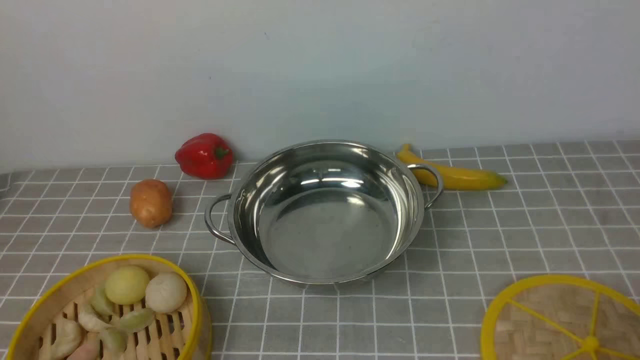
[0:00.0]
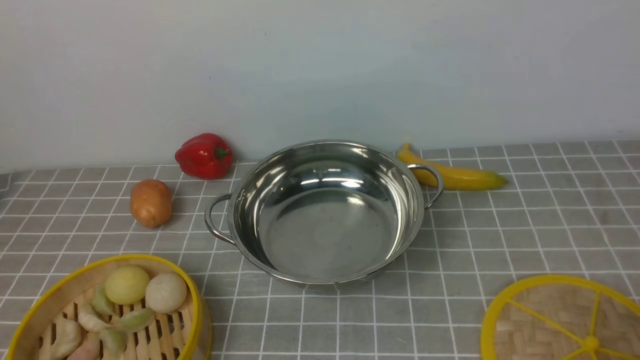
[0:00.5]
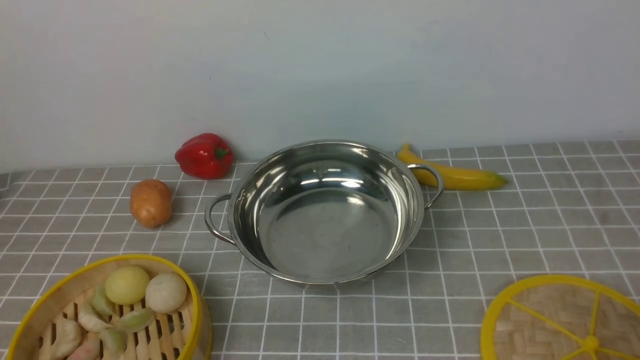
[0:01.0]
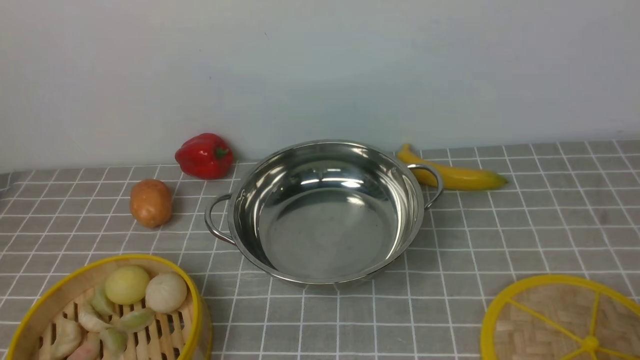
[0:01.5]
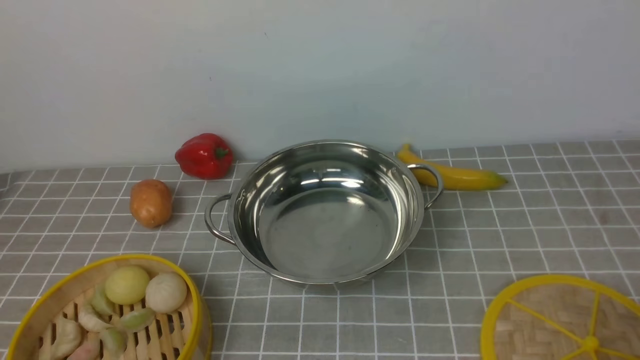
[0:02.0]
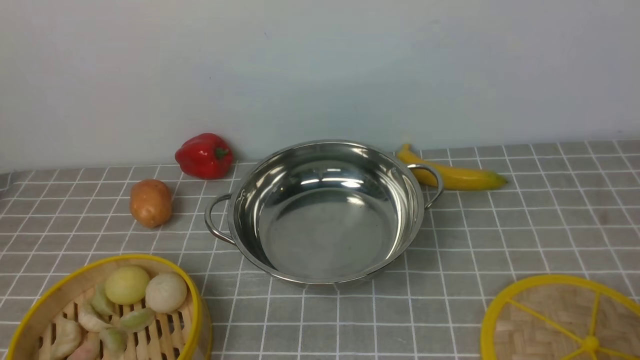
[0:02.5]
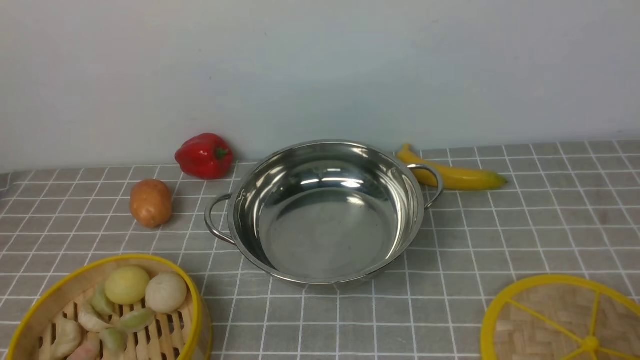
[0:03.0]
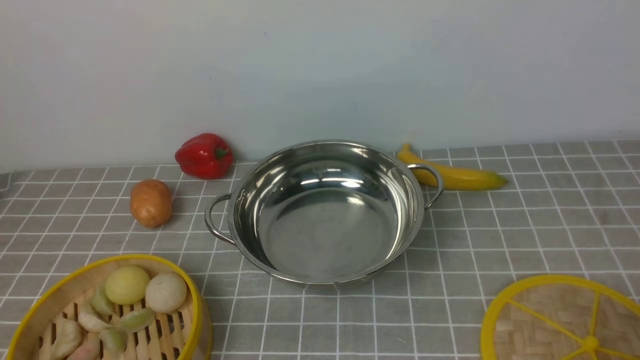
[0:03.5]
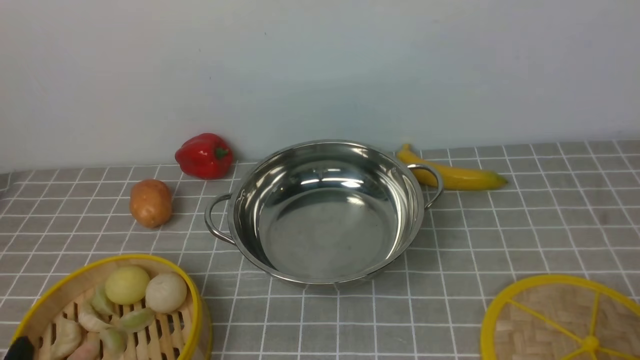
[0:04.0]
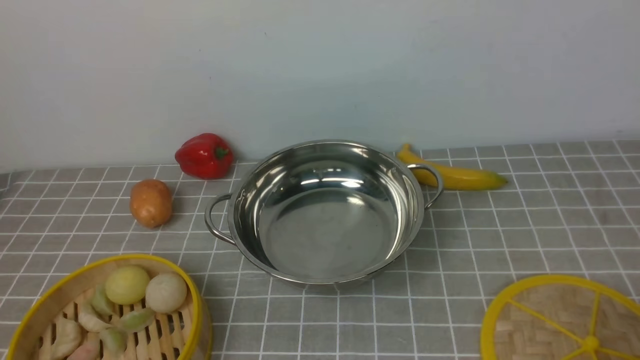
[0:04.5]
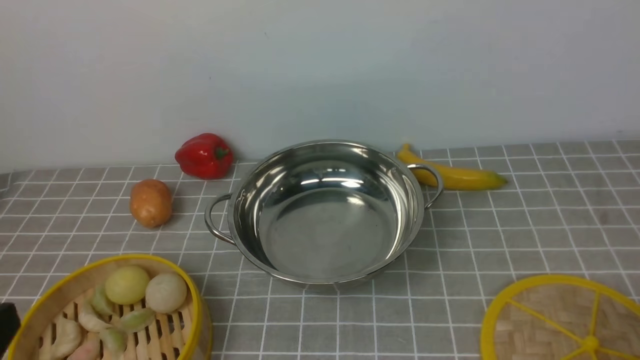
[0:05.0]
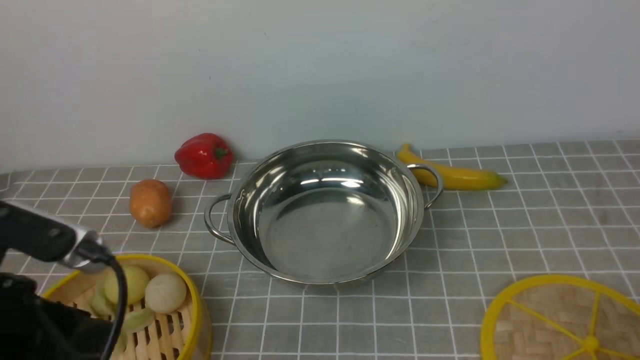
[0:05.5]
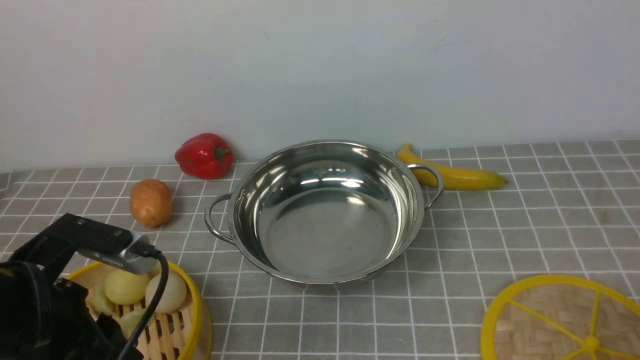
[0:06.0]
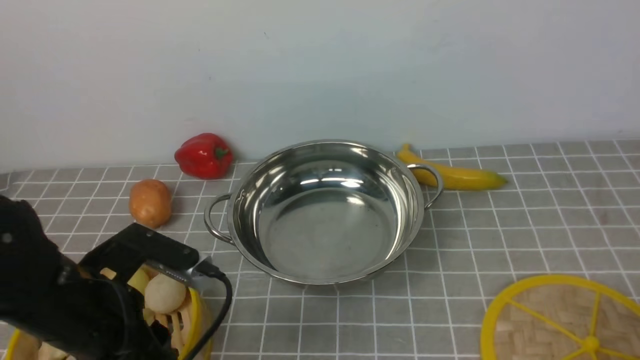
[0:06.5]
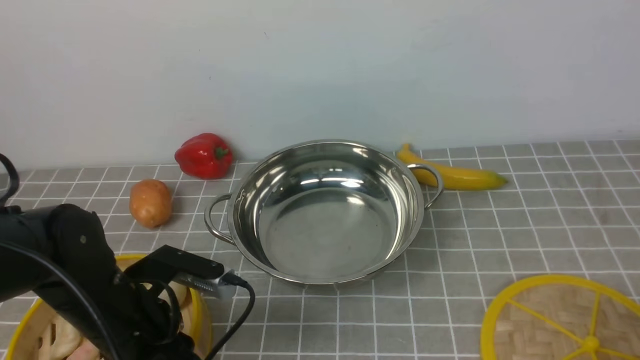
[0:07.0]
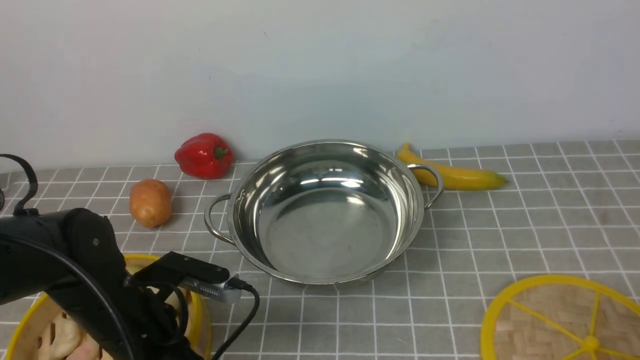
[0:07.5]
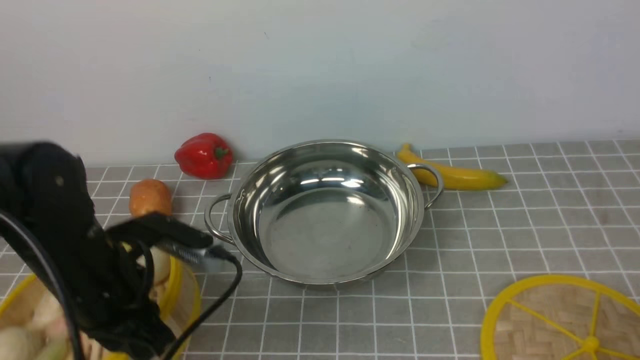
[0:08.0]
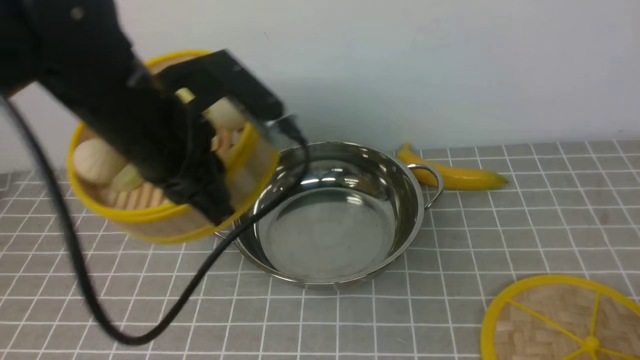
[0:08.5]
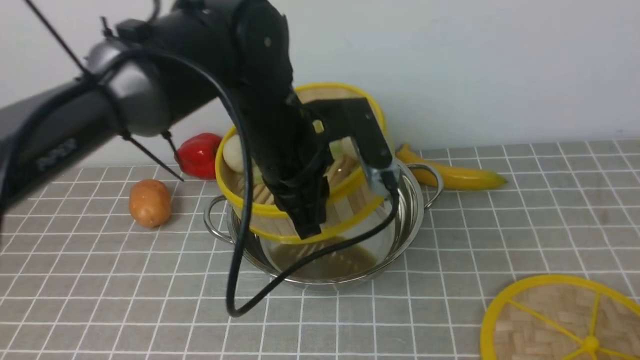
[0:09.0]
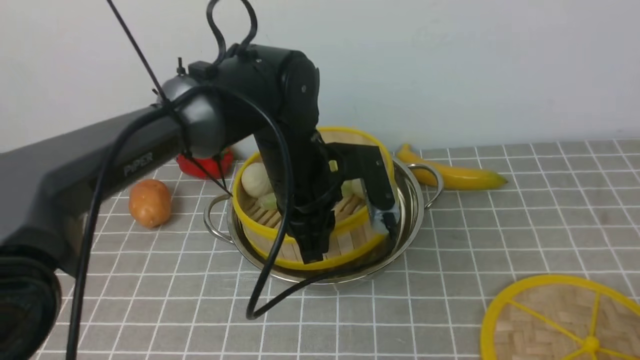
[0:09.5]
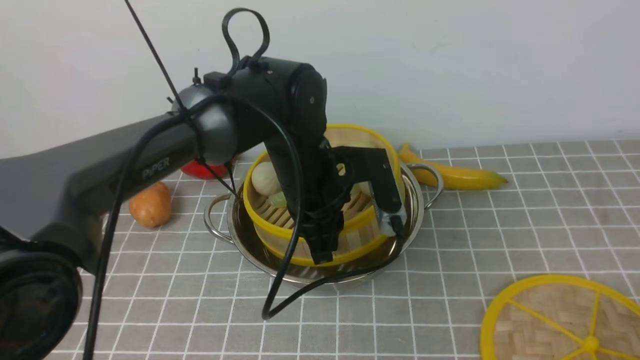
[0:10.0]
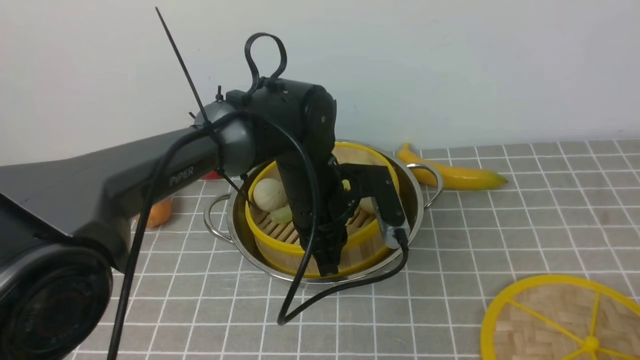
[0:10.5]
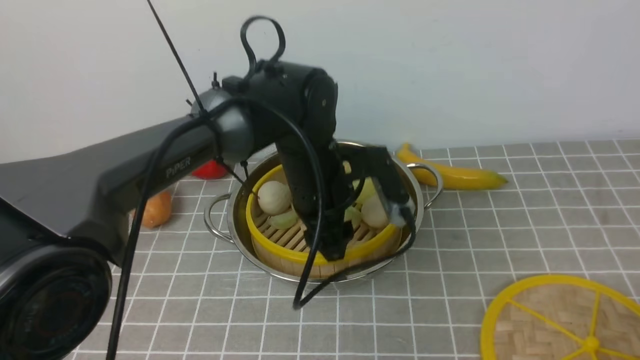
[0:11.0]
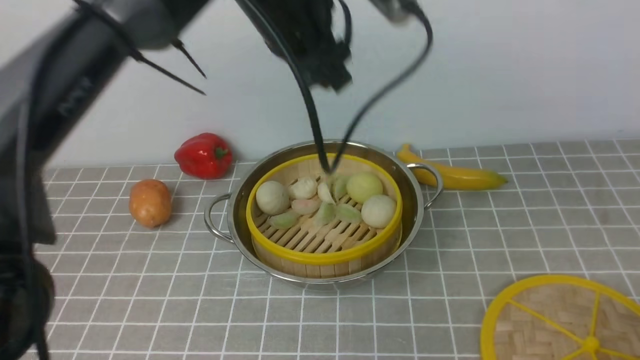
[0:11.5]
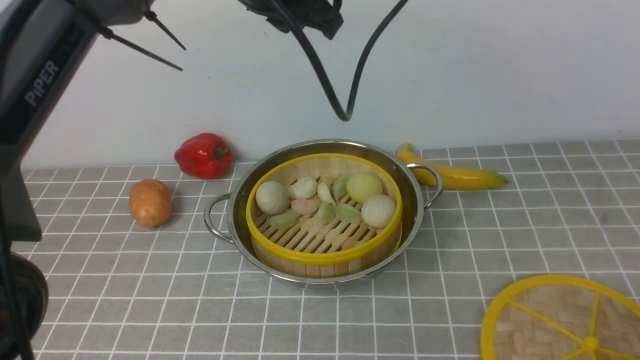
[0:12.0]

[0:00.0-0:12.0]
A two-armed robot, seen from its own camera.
Task of the whole recording: place the steamer in the pot on the grey tablecloth, and put the lid on the steamer.
Step, 0:00.0 to 0:07.5: use the left arm to lift the steamer closest to it.
Step, 0:08.0 to 0:11.0: use the left arm to put the steamer into the iron steamer pot in the middle.
0:00.0 to 0:02.0: Both grippers stay put.
0:04.0 to 0:06.0: The left gripper is displaced forward and upward by roughly 15 cm.
0:06.0 to 0:08.0: The left gripper is displaced forward by about 5 cm, travels downward and back again, about 10 cm each way, and closes its fingers.
0:08.0 to 0:10.0: The left gripper is displaced to the right and forward by approximately 20 cm.
0:10.0 to 0:12.0: The left gripper heads upward, covering approximately 20 cm, and opens up.

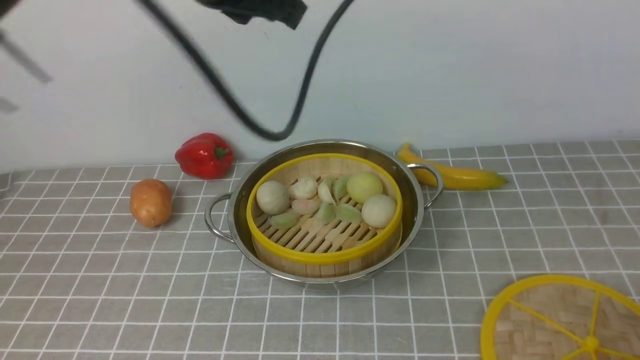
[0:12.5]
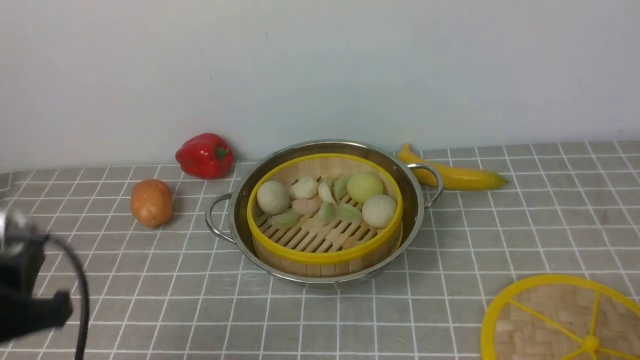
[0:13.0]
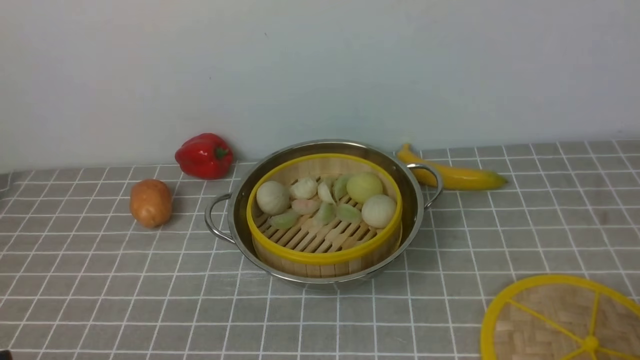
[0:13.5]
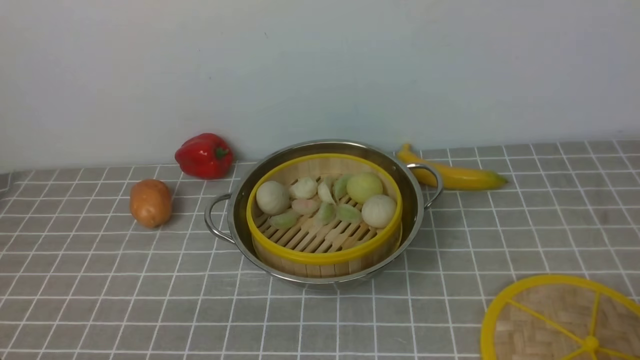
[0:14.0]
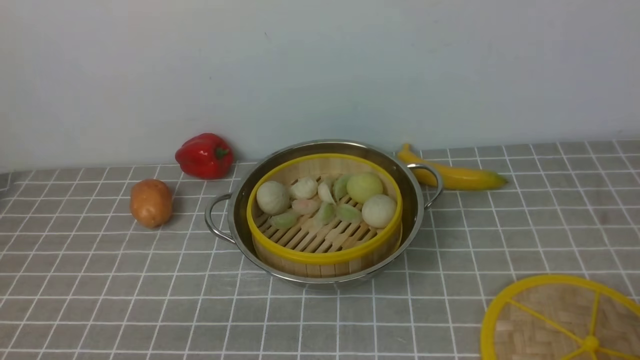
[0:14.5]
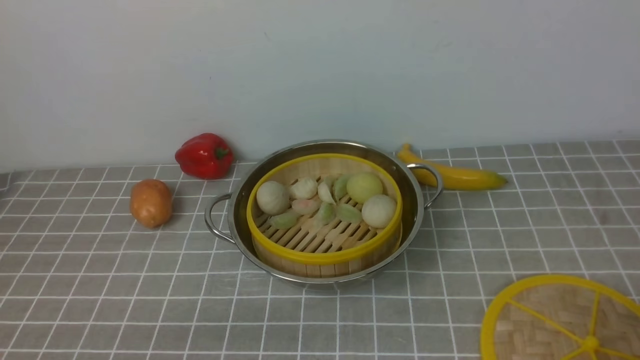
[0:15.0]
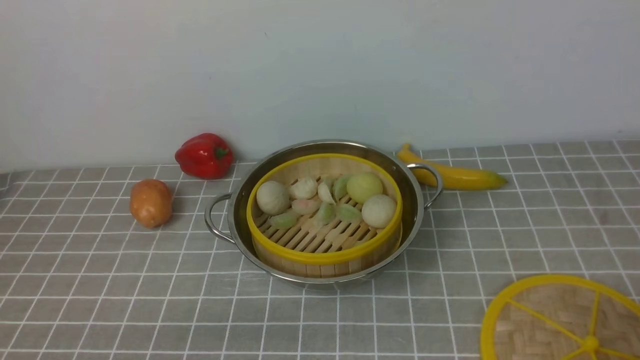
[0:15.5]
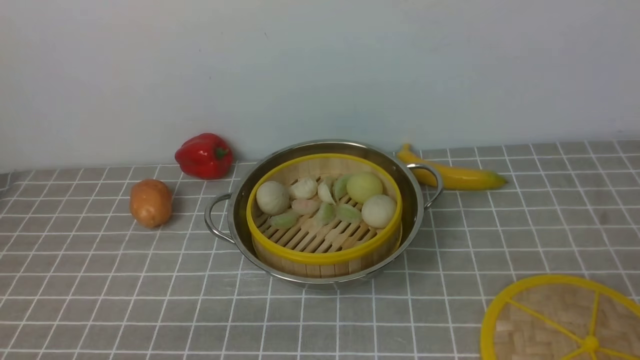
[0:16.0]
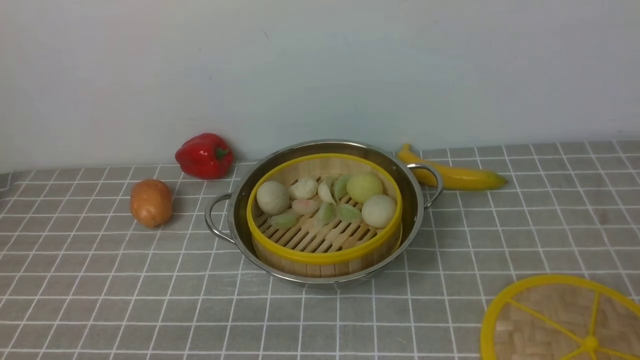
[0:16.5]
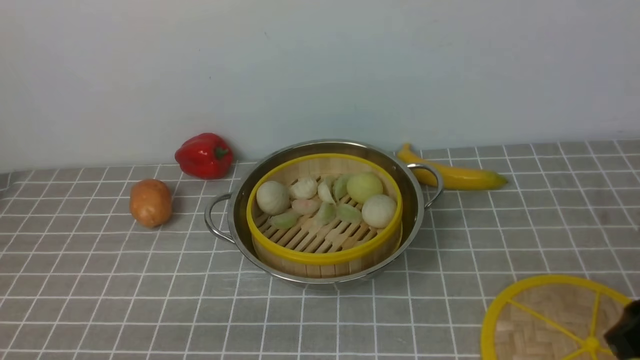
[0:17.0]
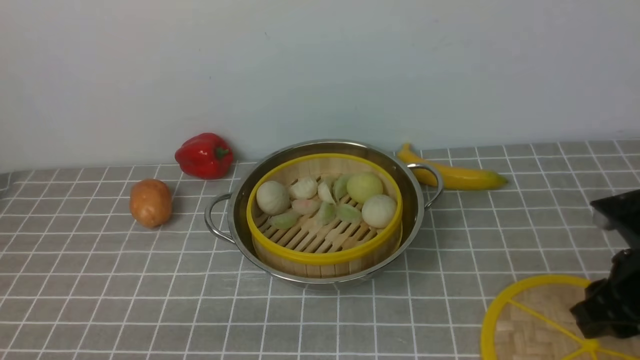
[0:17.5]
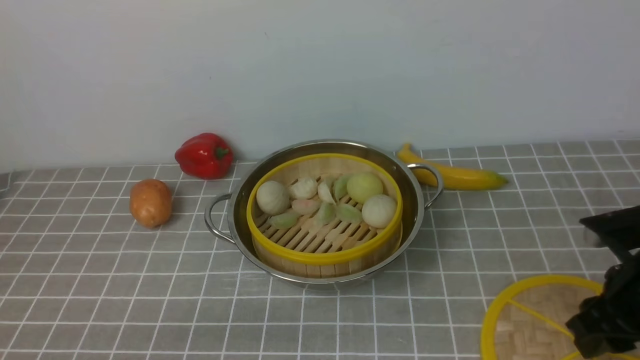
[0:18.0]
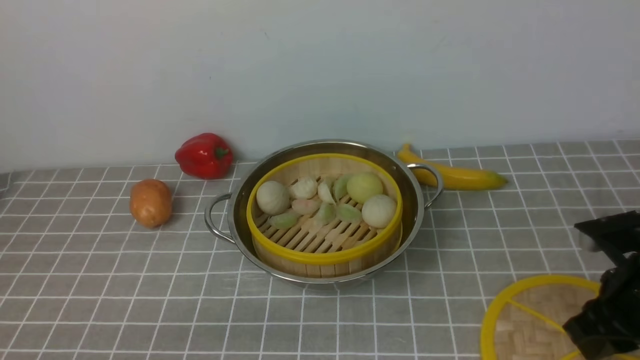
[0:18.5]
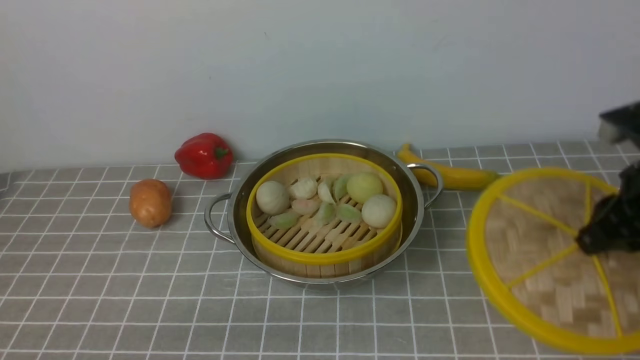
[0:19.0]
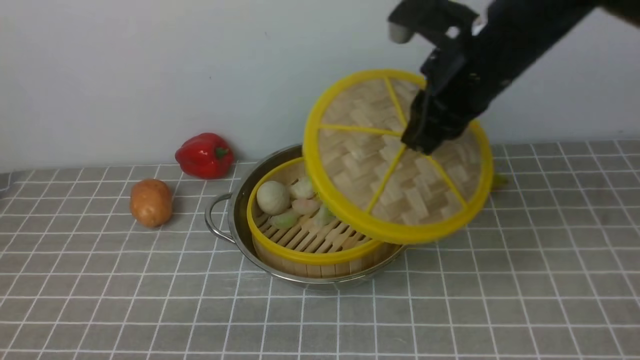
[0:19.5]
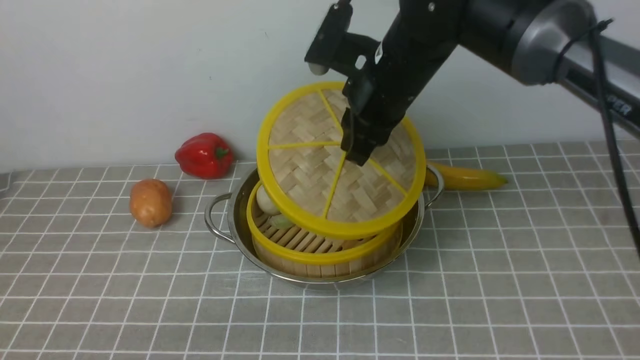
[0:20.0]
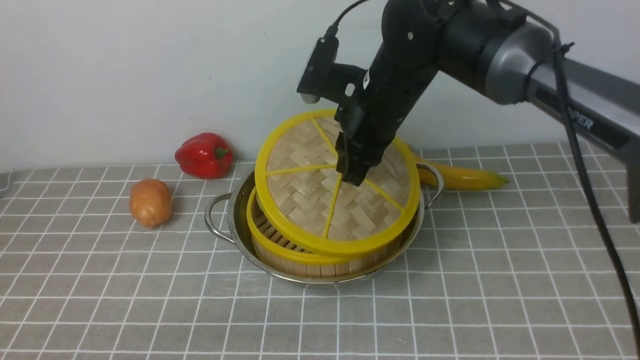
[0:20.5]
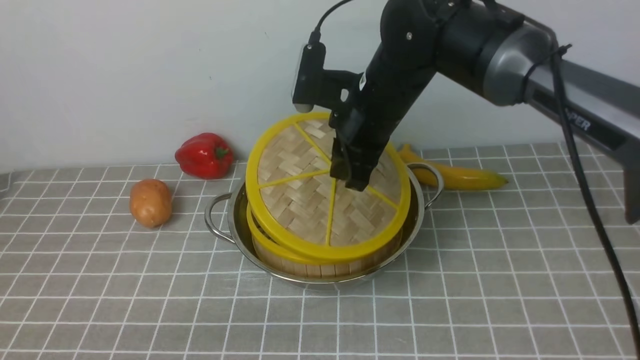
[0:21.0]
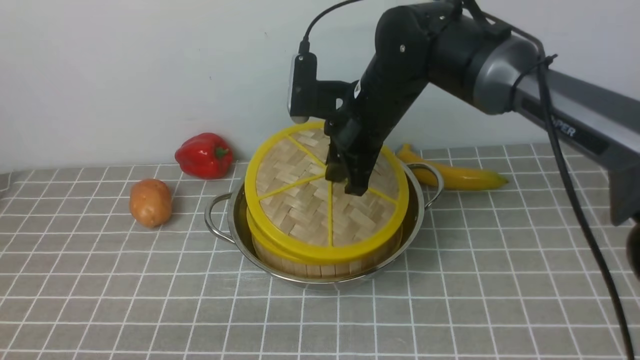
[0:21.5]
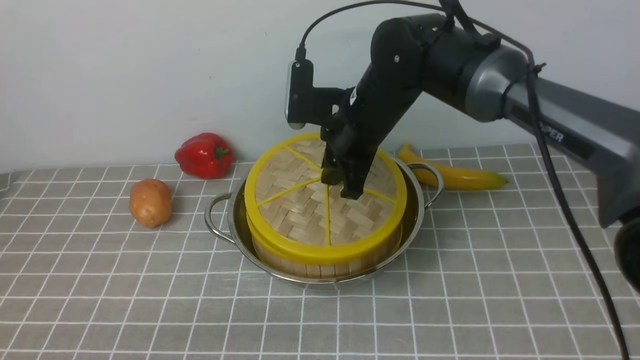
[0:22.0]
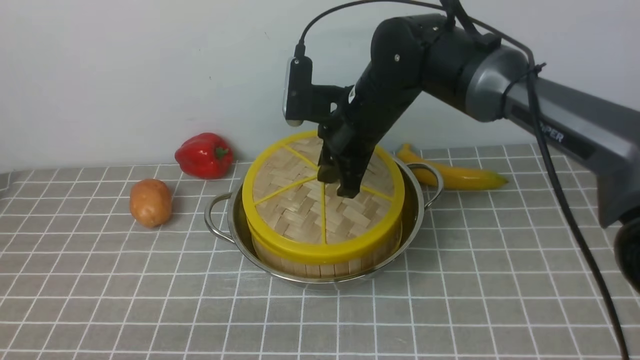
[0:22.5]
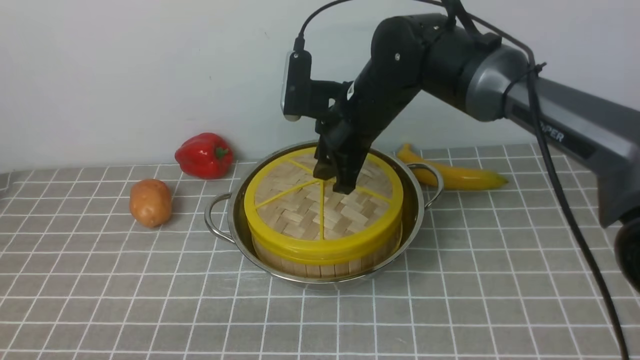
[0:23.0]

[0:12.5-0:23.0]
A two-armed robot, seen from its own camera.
Task of the whole recording: place the steamer in the pot on the grey tablecloth, and put the lid on the steamer.
Step, 0:12.5 to 0:18.5: use the right arm to lift the lid of the steamer.
0:12.5 to 0:14.5: The left gripper shifts roughly 40 cm backward, downward and to the left.
0:16.5 to 0:19.0: The right gripper moves forward, some 20 cm.
0:19.0 to 0:21.0: The right gripper is displaced to the left and forward by roughly 25 cm.
0:21.0 to 0:23.0: The right gripper opens up.
